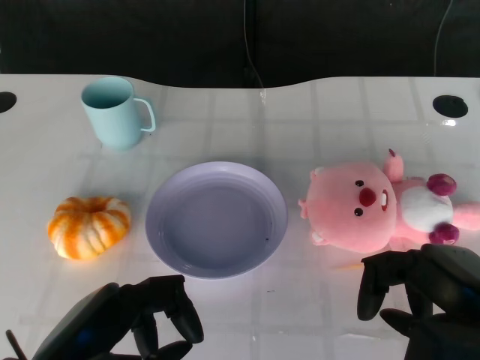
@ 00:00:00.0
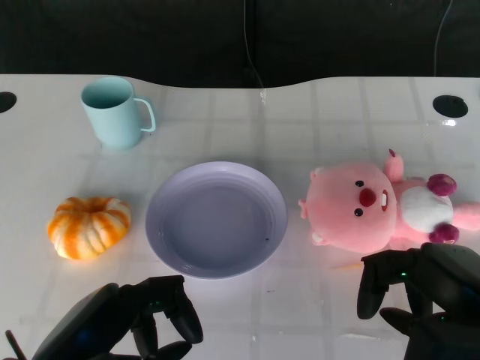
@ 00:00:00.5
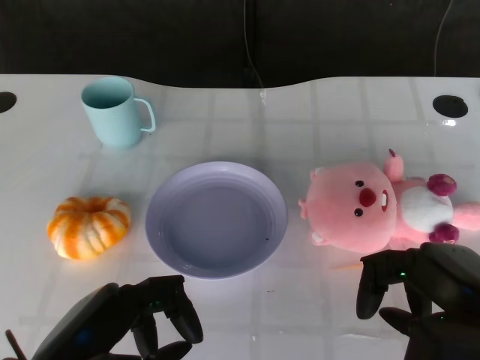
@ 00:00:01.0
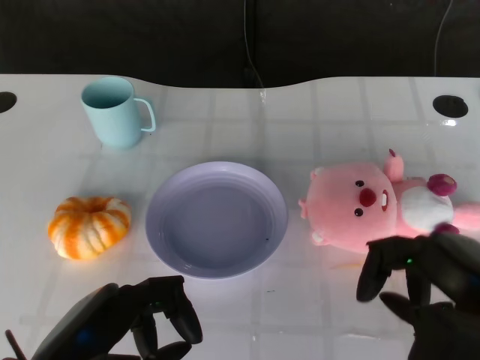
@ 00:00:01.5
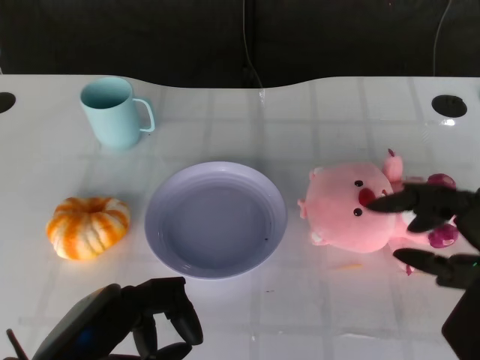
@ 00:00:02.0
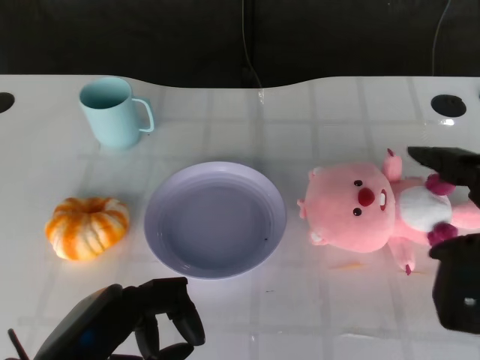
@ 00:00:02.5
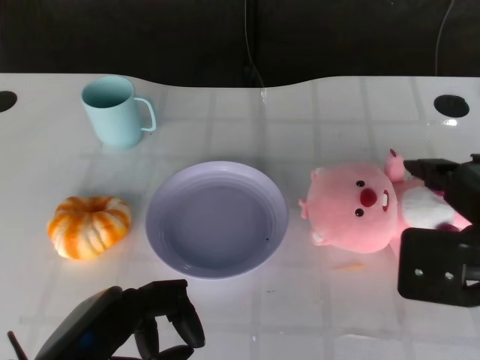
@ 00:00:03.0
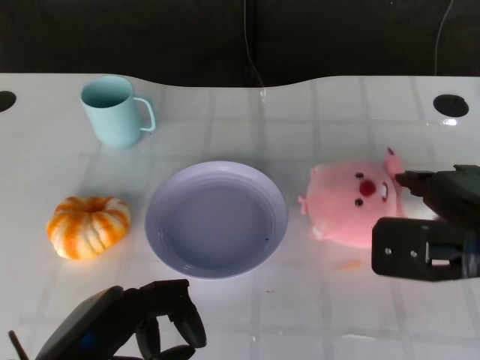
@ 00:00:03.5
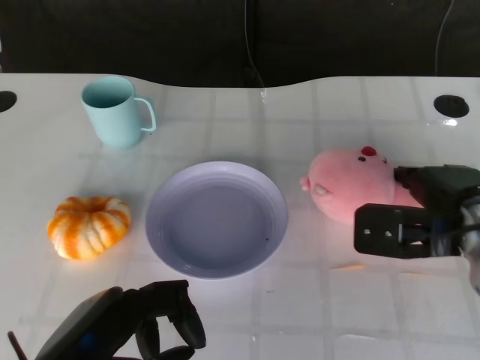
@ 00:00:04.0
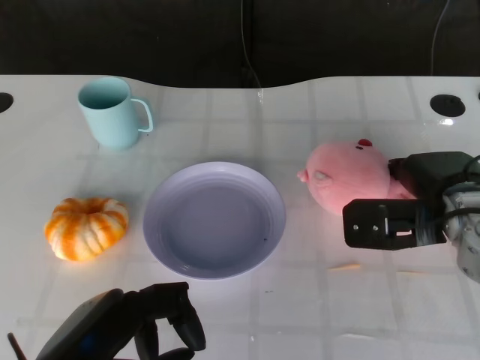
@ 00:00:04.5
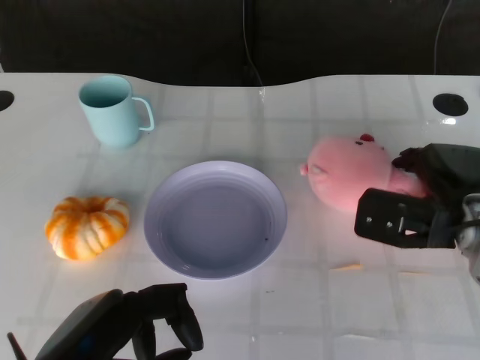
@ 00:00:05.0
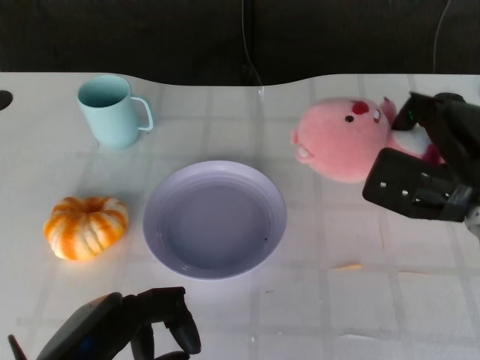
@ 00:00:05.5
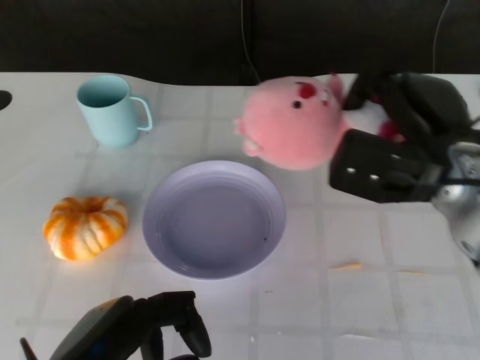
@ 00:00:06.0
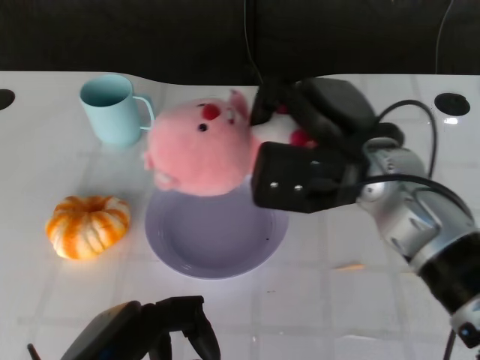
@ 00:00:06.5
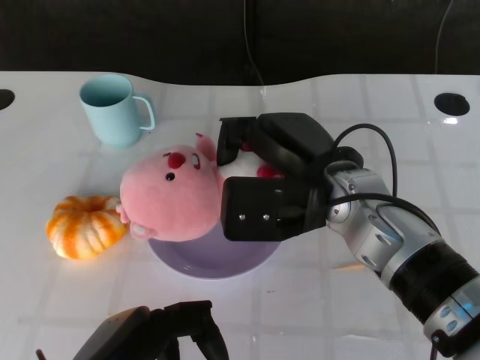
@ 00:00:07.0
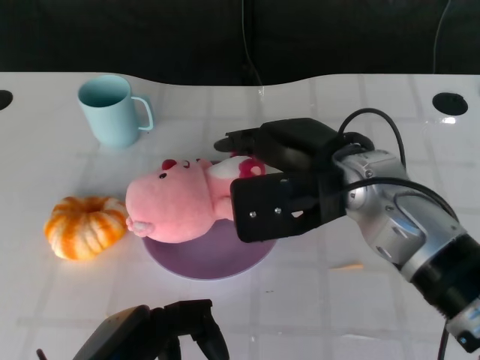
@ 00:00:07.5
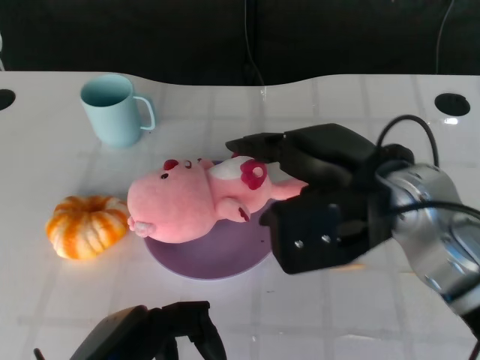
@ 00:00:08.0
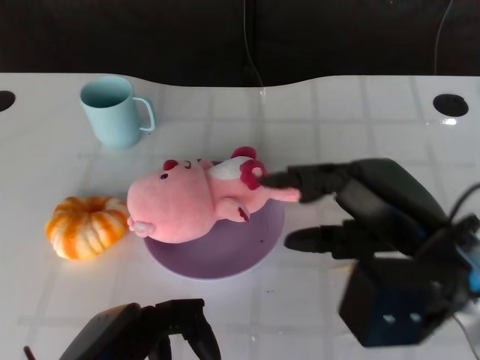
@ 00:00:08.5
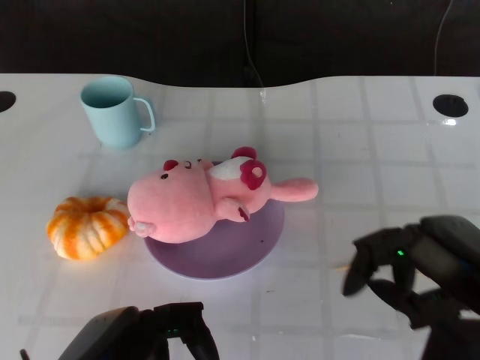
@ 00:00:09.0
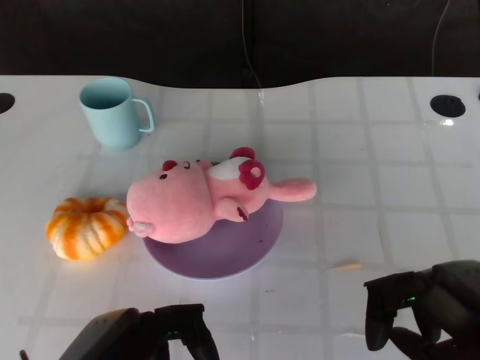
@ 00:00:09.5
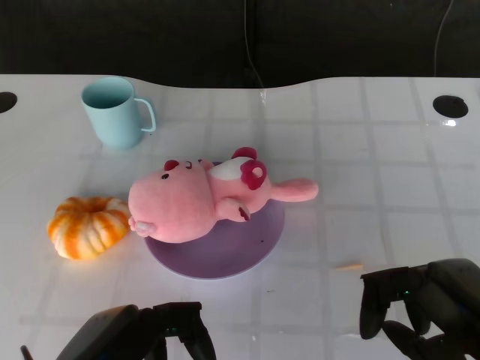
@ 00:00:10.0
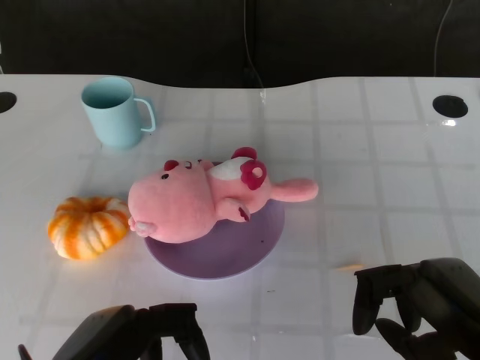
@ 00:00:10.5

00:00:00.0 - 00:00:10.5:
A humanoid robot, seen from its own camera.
Task of the whole recording: Pick up the doll on the other side of the plate and place it into the plate.
Step, 00:00:01.5 - 00:00:05.0: Grasp the pink doll with the right gripper.
Step, 00:00:05.5 - 00:00:07.5: Place the pink doll into the plate with the right gripper.
00:00:02.0 - 00:00:04.0: The right hand travels forward and downward by roughly 15 cm.
00:00:04.0 - 00:00:06.5: The right hand goes some 10 cm to the left and upward.
00:00:06.5 - 00:00:08.5: The right hand shifts roughly 10 cm backward and to the right.
00:00:08.5 - 00:00:10.5: The right hand is displaced backward, downward and to the right by some 10 cm.

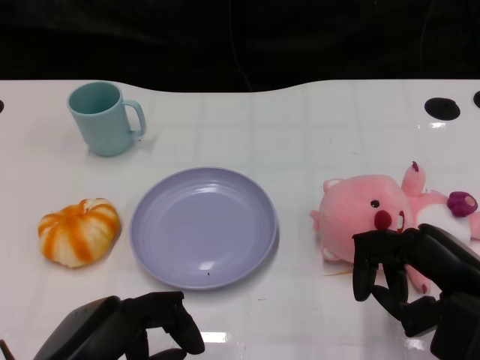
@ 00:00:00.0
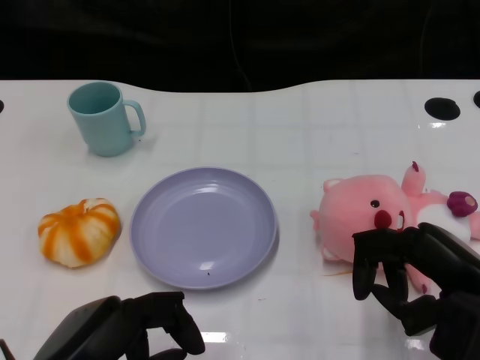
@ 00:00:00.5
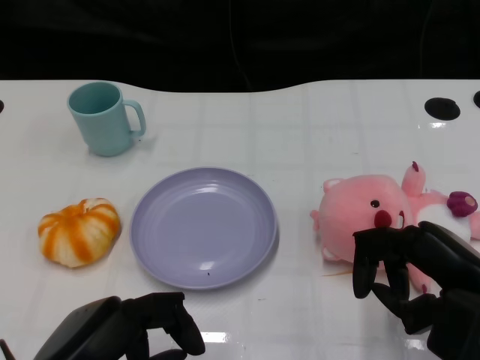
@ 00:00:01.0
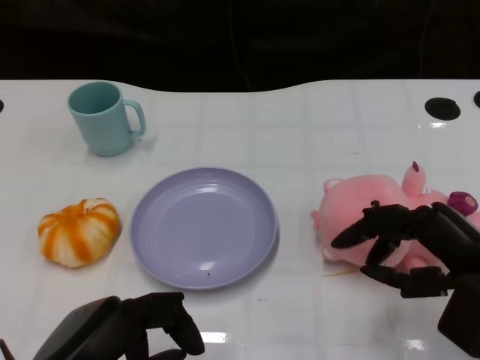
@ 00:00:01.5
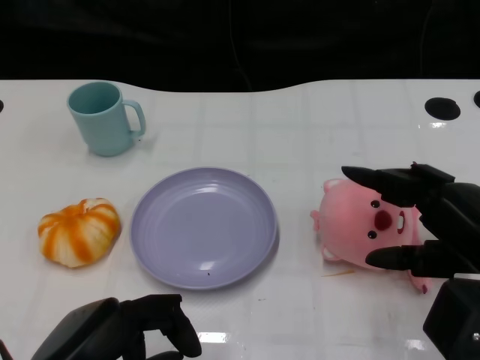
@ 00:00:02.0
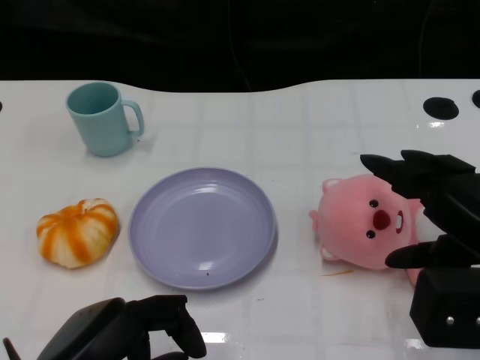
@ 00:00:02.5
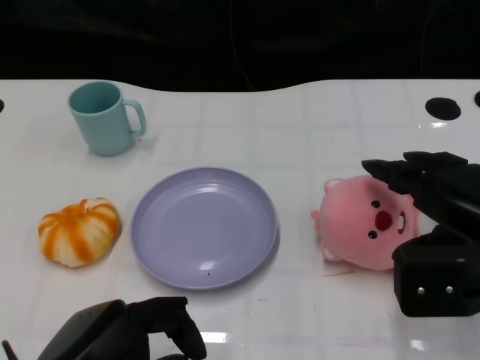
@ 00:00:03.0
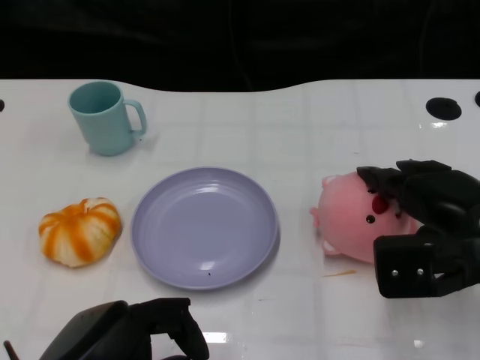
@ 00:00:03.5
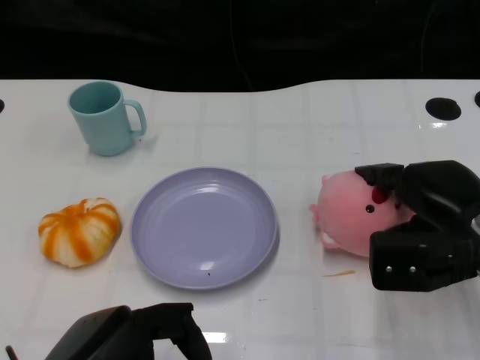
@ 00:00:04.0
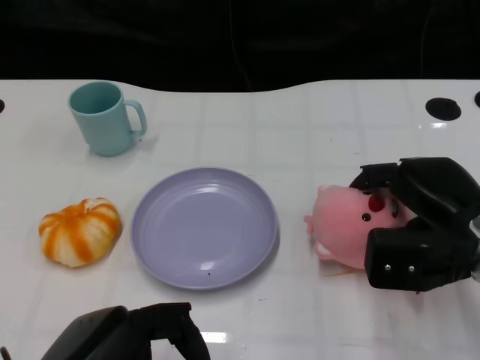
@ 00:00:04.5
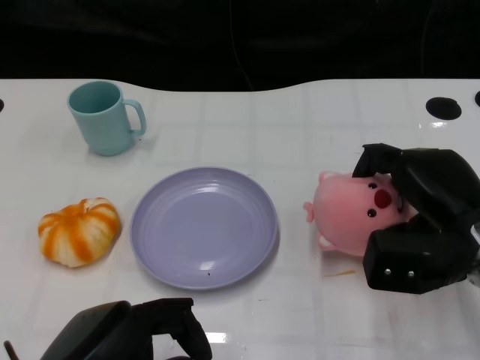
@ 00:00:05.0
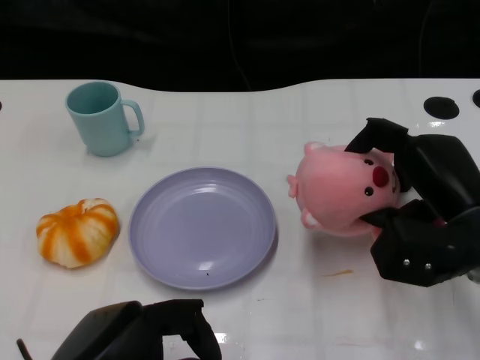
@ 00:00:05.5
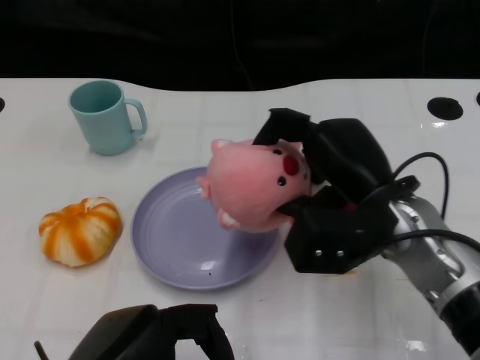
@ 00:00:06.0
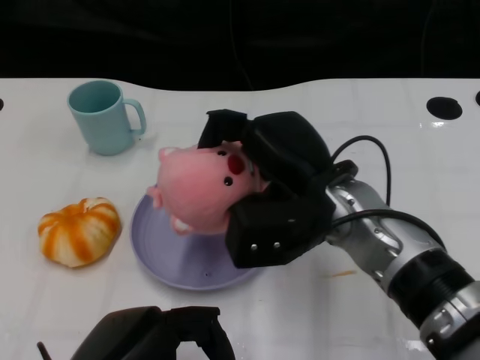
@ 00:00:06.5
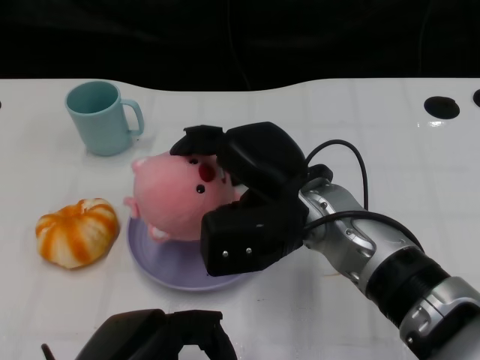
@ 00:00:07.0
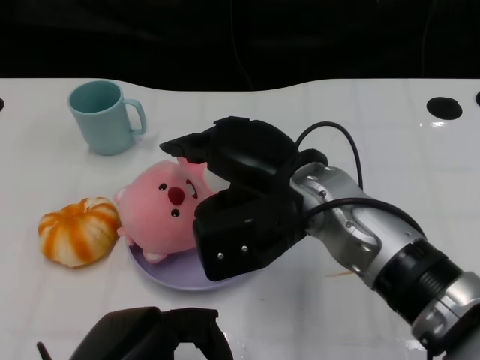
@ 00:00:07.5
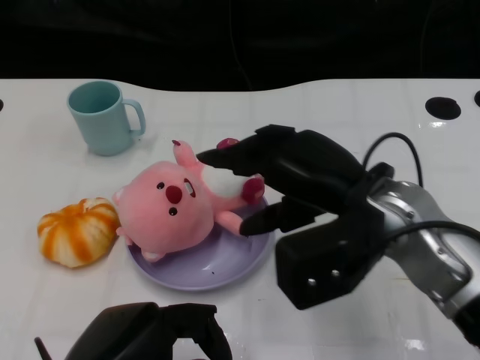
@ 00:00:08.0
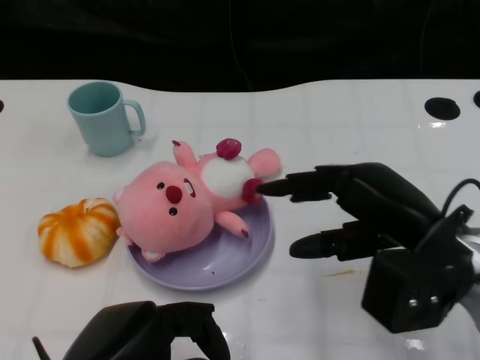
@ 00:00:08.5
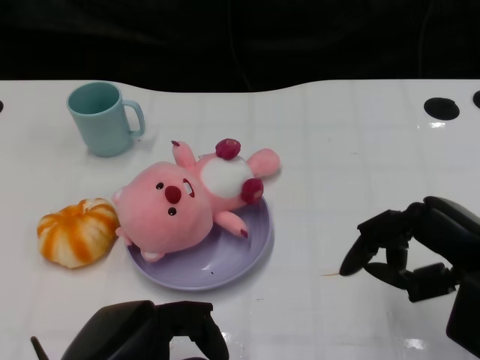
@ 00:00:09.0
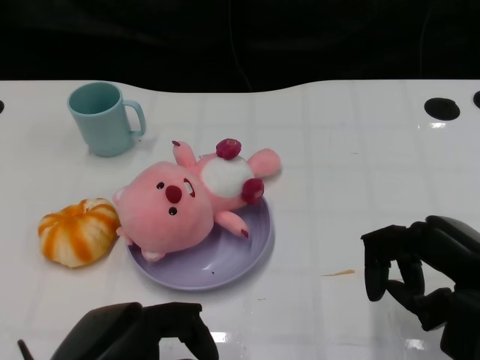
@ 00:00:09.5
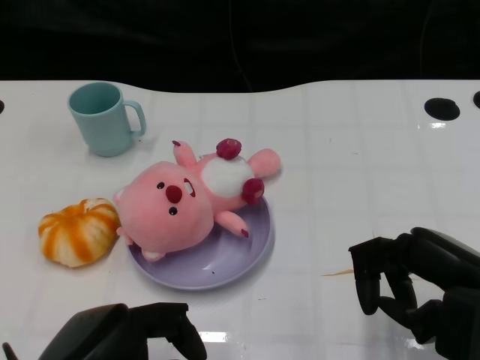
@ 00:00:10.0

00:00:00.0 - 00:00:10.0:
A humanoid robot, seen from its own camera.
Task of the whole recording: Pick up the doll on the other side of the plate and place it into the plate.
Step, 00:00:01.5 - 00:00:05.5: Grasp the pink doll with the right gripper.
Step, 00:00:06.0 - 00:00:08.0: Place the pink doll into the plate with the right gripper.
00:00:02.0 - 00:00:04.0: The right hand travels forward by about 10 cm.
00:00:04.0 - 00:00:06.0: The right hand is displaced to the left by approximately 10 cm.
00:00:06.0 - 00:00:08.0: The right hand moves about 10 cm to the left and comes back.
00:00:08.0 - 00:00:10.0: The right hand is displaced to the right and backward by approximately 15 cm.

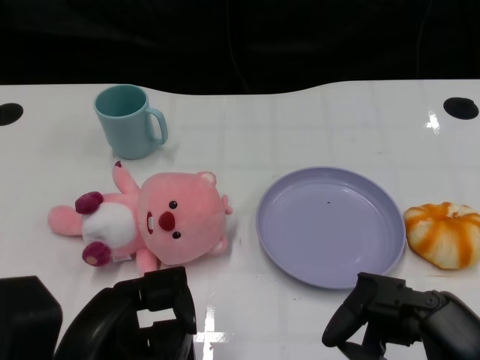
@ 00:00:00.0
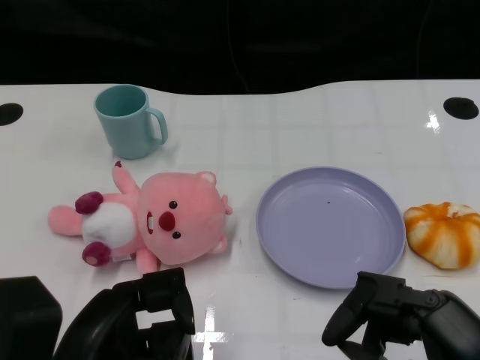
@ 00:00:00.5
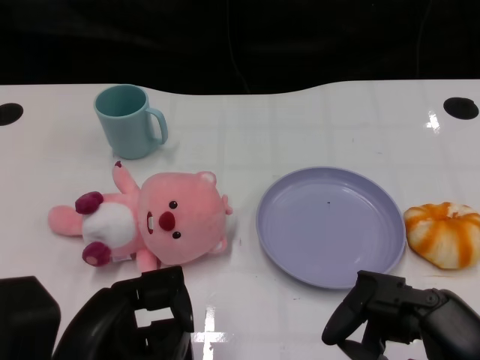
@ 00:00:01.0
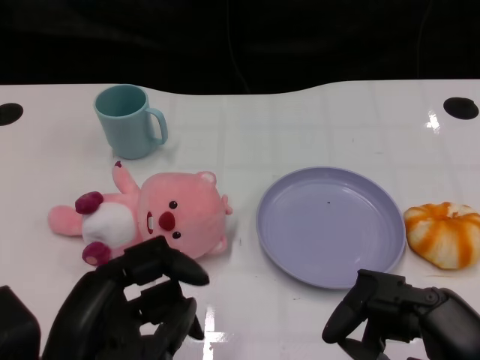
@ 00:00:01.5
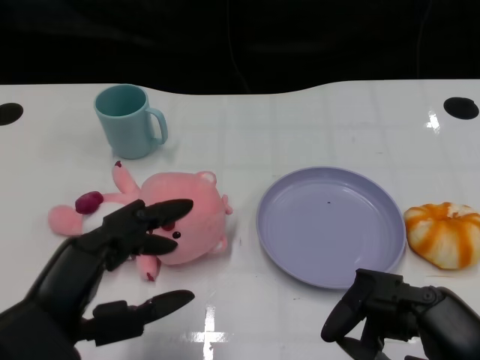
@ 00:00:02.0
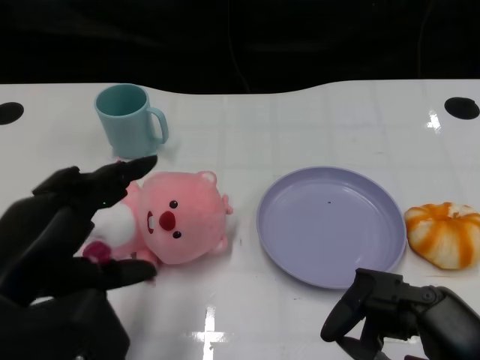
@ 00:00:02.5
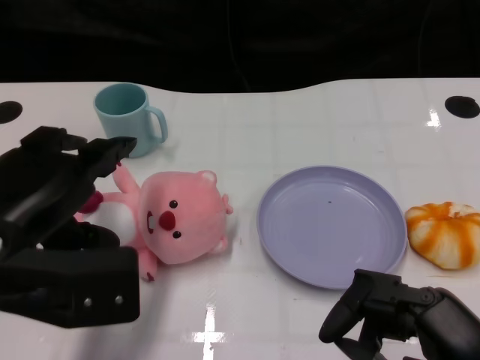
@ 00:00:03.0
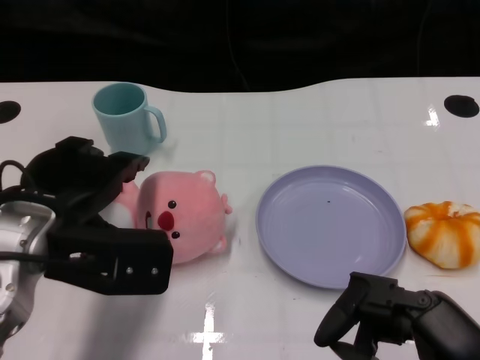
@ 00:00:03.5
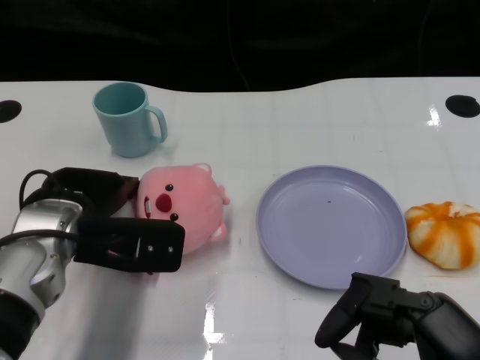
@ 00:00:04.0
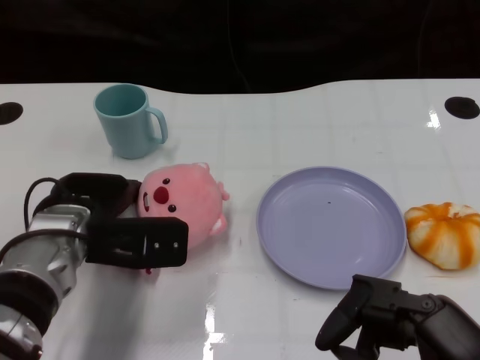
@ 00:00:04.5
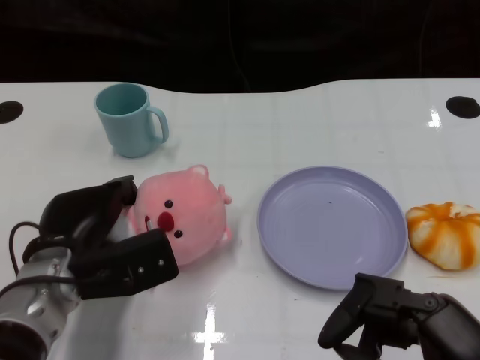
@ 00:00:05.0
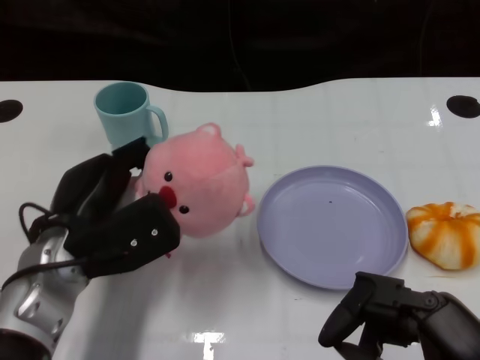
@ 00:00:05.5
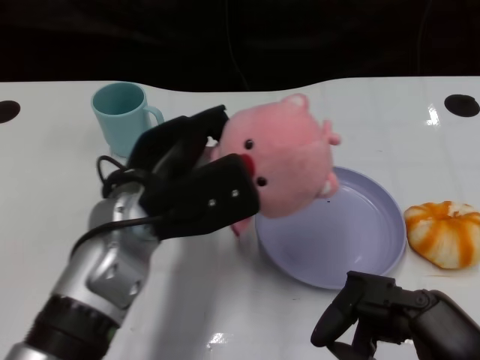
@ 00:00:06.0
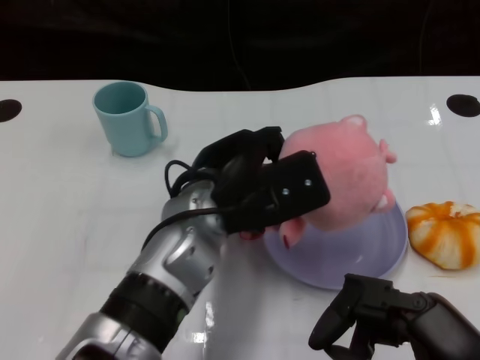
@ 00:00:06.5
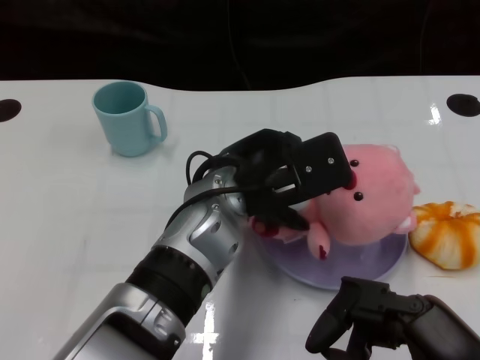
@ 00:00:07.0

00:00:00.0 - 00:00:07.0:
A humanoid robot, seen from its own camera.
Task of the whole recording: Pick up the doll on one side of the plate and place it into the plate.
Step, 00:00:01.5 - 00:00:05.0: Grasp the pink doll with the left gripper.
00:00:02.0 - 00:00:03.5: The left hand moves forward, some 10 cm.
00:00:03.5 - 00:00:05.0: The left hand goes roughly 10 cm downward.
00:00:05.0 - 00:00:07.0: The left hand goes some 20 cm to the right and upward.
